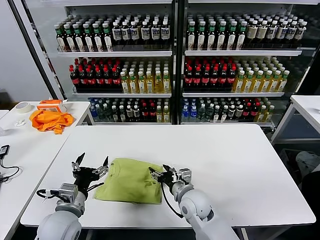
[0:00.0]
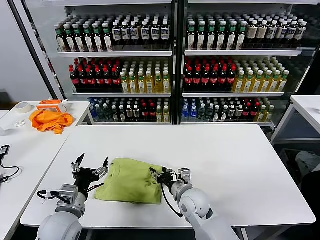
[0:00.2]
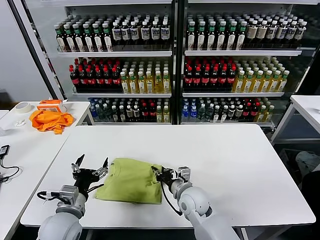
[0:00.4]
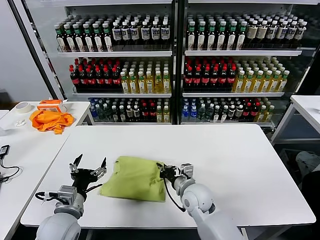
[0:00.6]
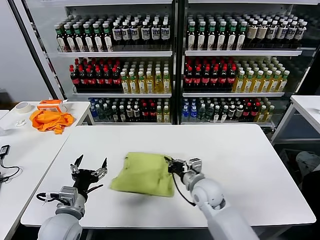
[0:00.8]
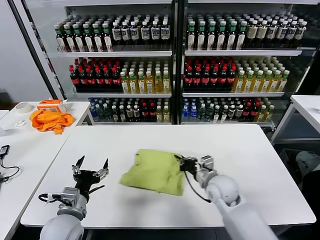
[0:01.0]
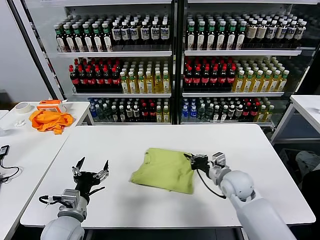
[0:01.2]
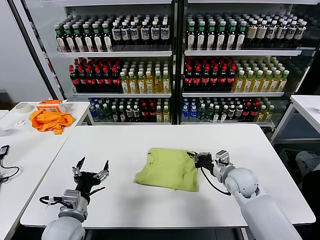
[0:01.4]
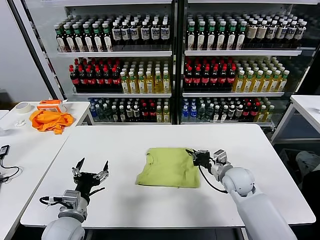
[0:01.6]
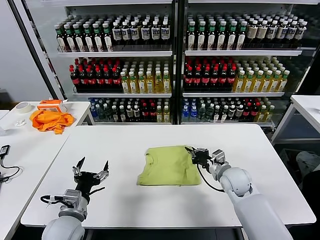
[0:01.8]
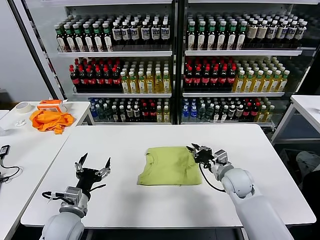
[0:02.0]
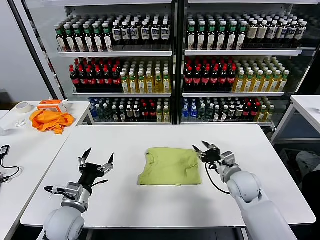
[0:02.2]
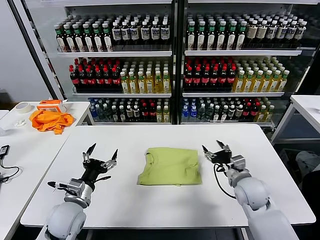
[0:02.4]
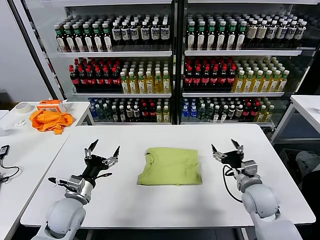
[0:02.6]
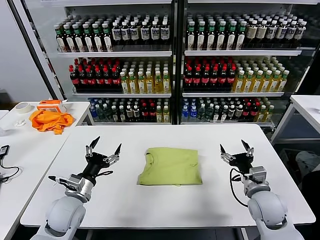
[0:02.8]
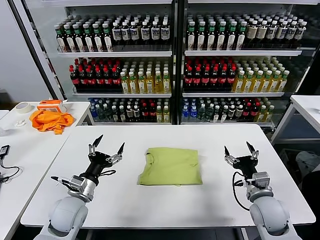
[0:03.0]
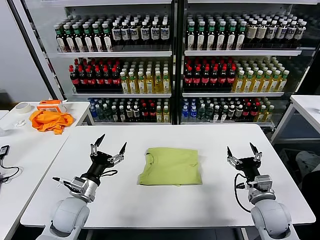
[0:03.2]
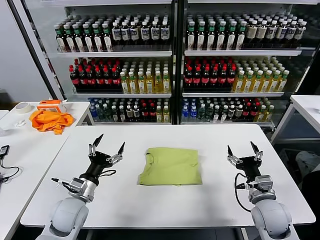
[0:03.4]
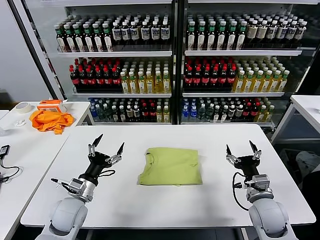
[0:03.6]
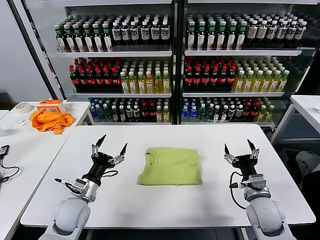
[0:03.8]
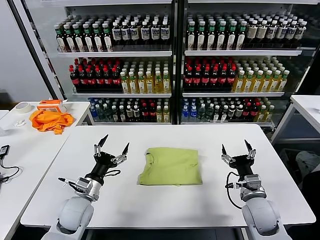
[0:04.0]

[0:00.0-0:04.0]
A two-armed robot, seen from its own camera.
Task of the whole recording: fold and organize the clothes.
Step, 0:00.0 to 0:02.2: Drag the clothes to the center of the table.
0:00.0 to 0:01.4: The right gripper moves to the right, roughly 15 cm, and closes.
0:01.4 to 0:02.6: The right gripper shifts approximately 5 cm backward, and opens its fingers, while the left gripper shifts about 5 cm forward.
0:02.6 to 0:04.0: The grippers move only a little.
